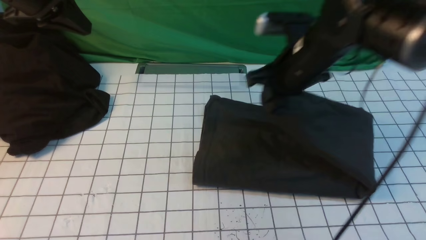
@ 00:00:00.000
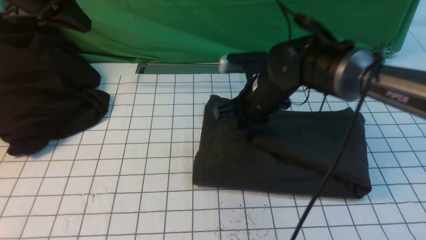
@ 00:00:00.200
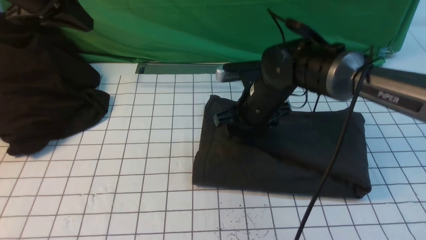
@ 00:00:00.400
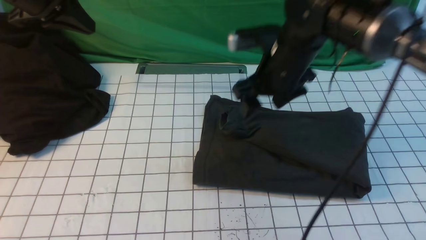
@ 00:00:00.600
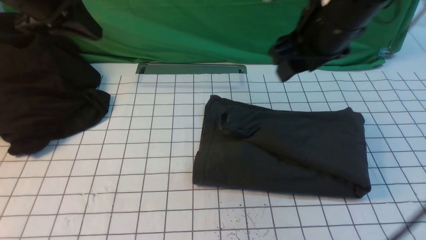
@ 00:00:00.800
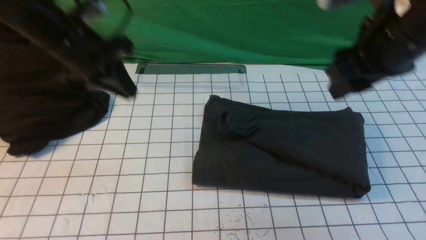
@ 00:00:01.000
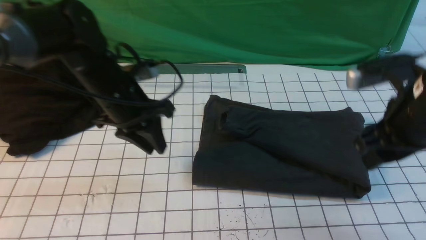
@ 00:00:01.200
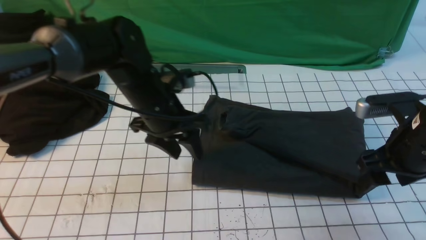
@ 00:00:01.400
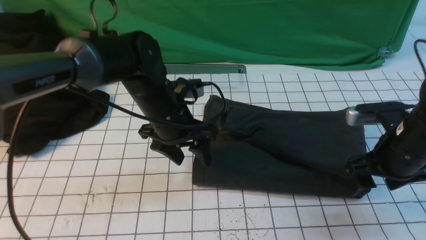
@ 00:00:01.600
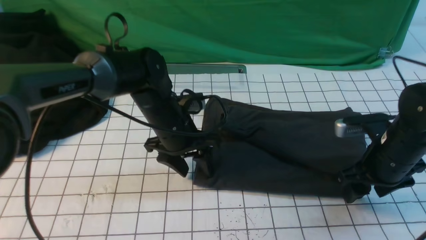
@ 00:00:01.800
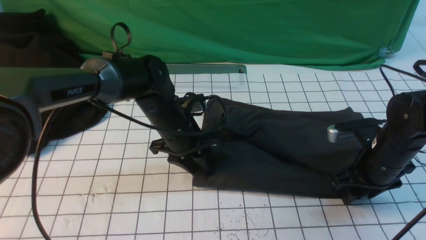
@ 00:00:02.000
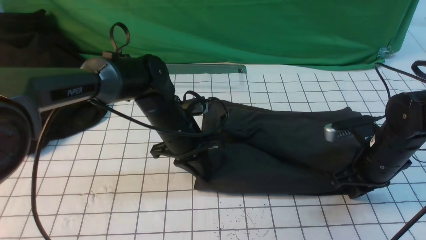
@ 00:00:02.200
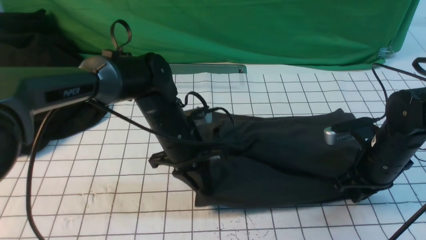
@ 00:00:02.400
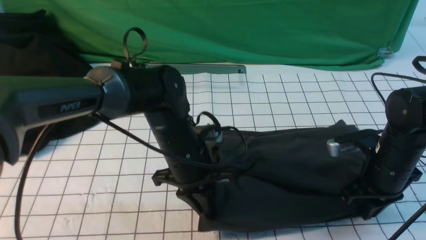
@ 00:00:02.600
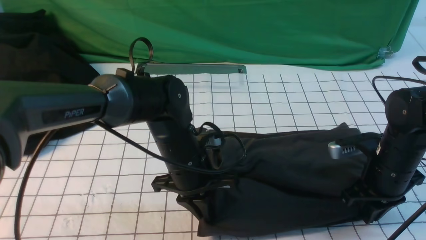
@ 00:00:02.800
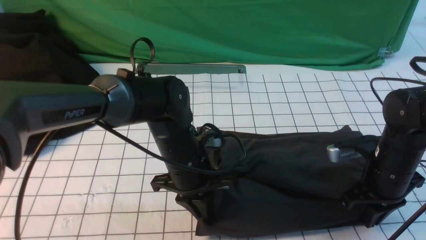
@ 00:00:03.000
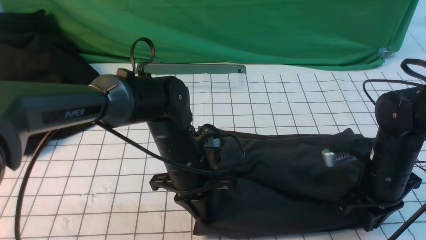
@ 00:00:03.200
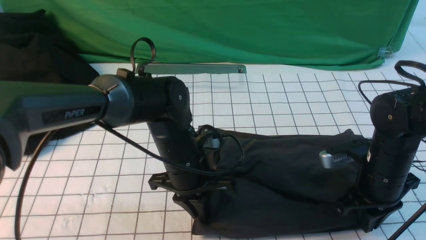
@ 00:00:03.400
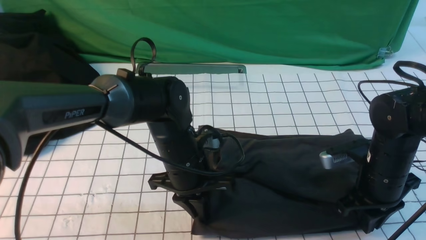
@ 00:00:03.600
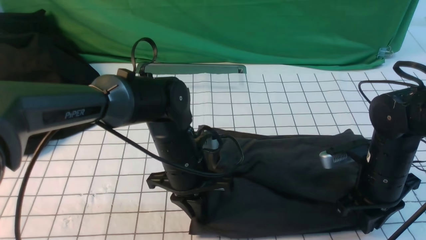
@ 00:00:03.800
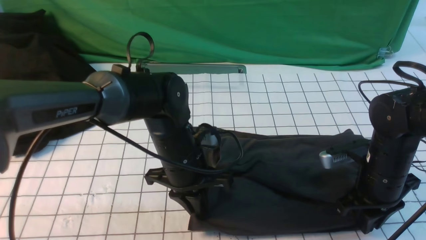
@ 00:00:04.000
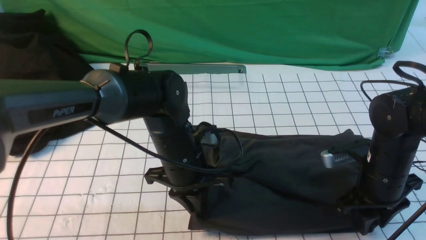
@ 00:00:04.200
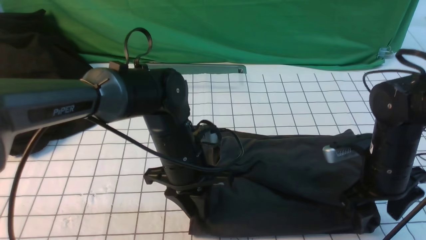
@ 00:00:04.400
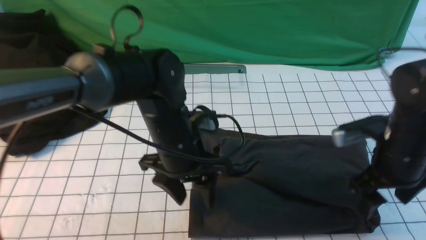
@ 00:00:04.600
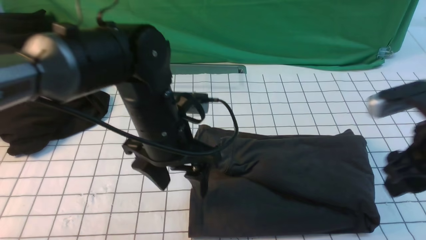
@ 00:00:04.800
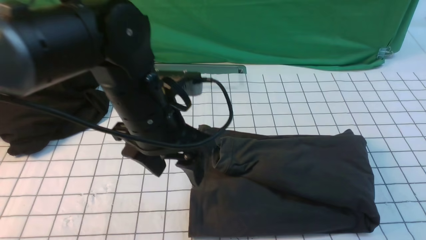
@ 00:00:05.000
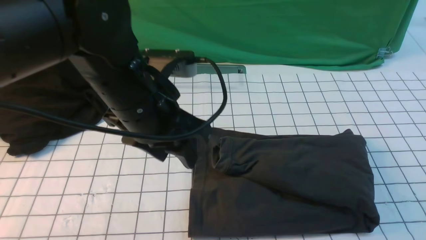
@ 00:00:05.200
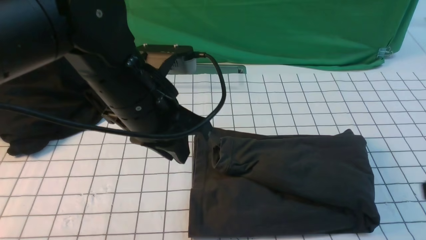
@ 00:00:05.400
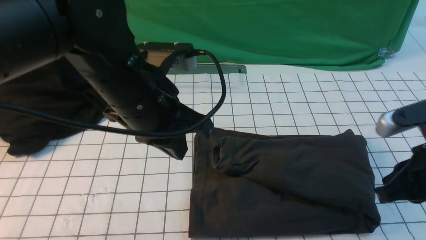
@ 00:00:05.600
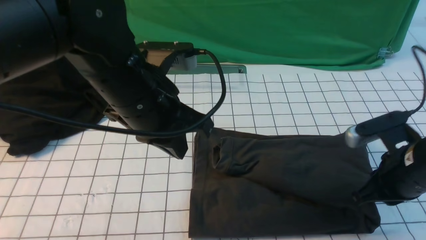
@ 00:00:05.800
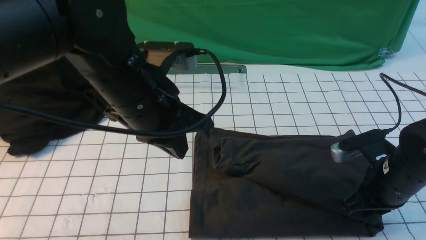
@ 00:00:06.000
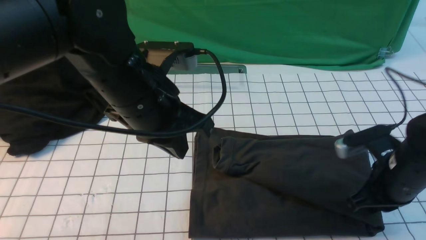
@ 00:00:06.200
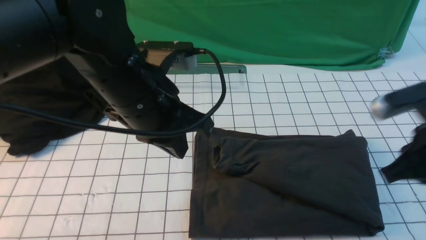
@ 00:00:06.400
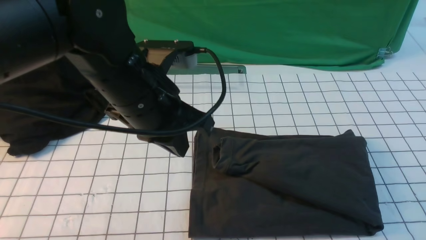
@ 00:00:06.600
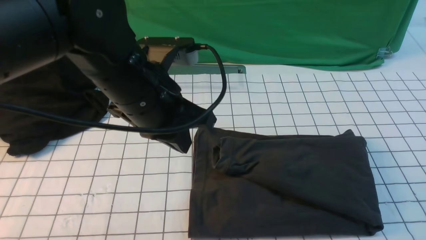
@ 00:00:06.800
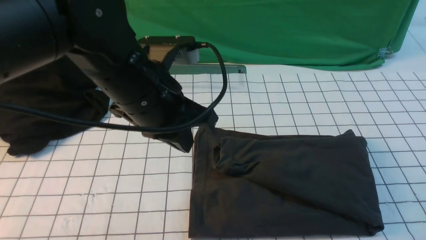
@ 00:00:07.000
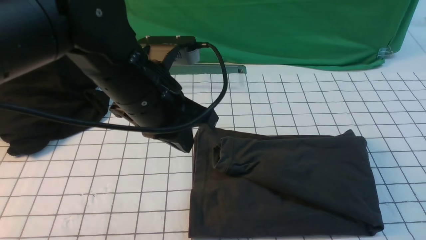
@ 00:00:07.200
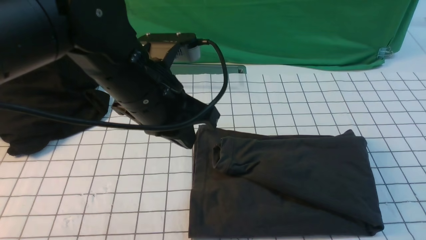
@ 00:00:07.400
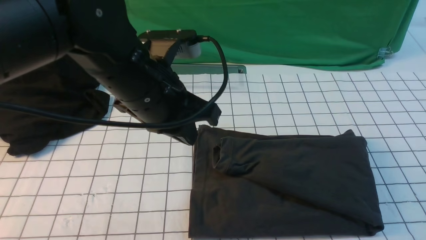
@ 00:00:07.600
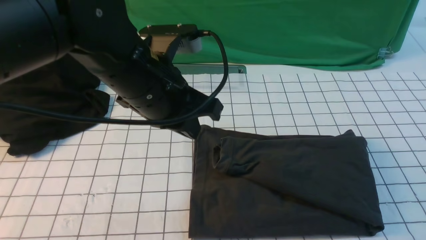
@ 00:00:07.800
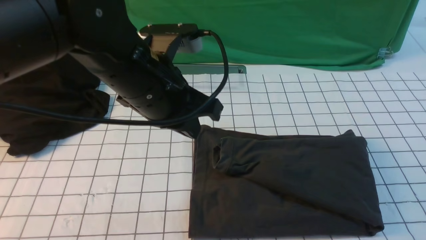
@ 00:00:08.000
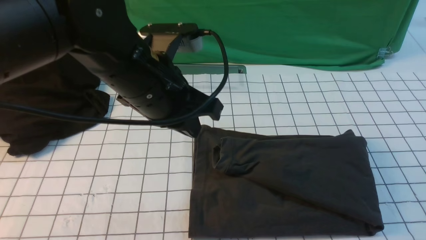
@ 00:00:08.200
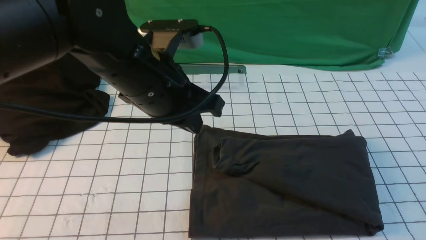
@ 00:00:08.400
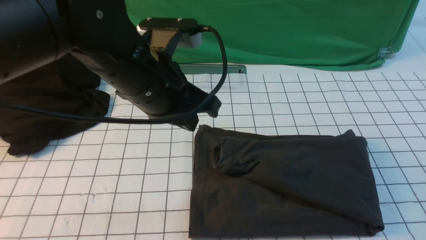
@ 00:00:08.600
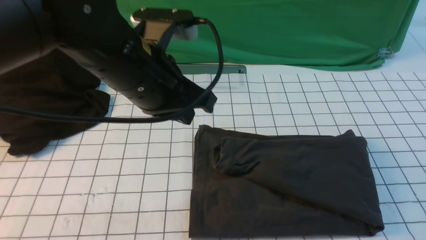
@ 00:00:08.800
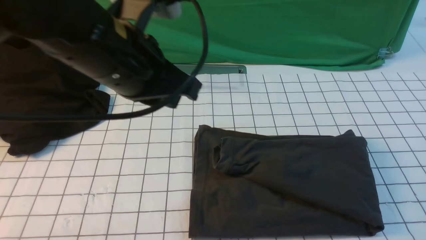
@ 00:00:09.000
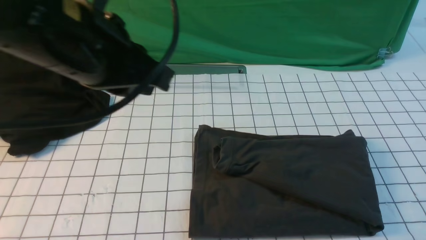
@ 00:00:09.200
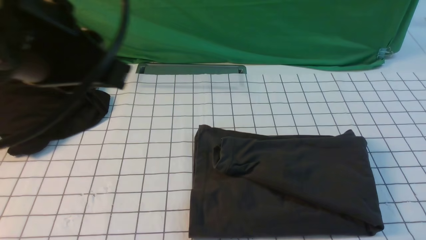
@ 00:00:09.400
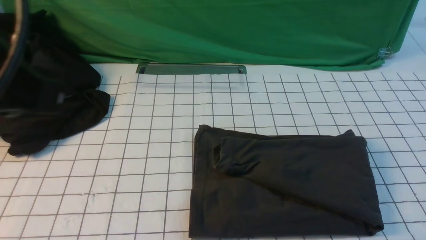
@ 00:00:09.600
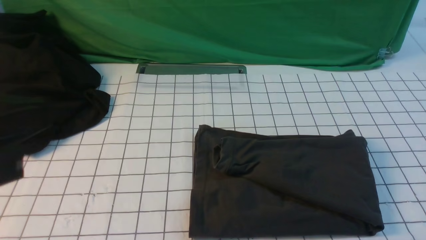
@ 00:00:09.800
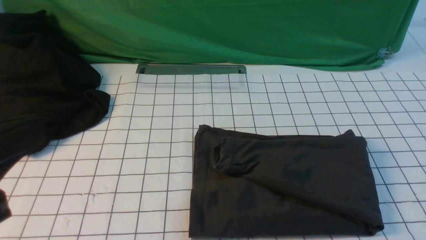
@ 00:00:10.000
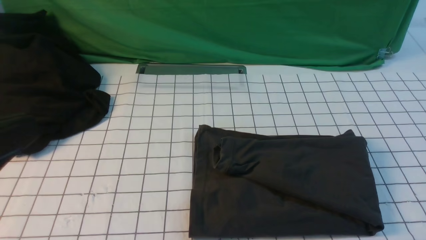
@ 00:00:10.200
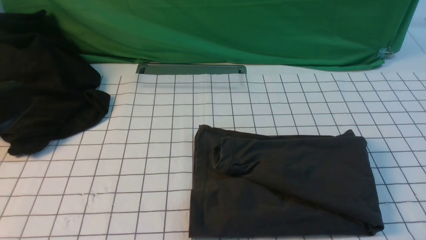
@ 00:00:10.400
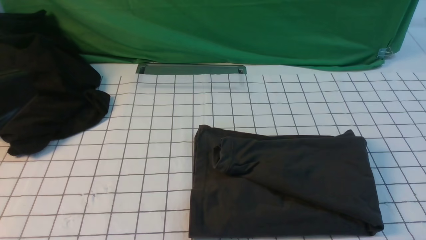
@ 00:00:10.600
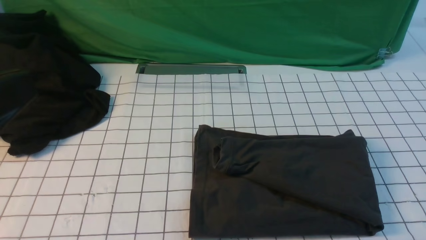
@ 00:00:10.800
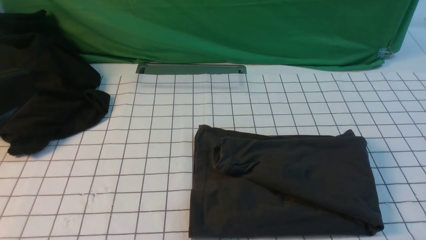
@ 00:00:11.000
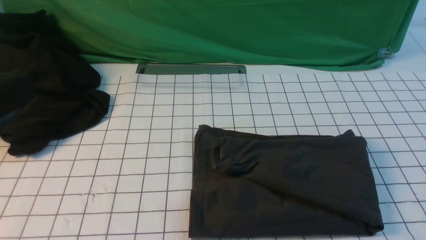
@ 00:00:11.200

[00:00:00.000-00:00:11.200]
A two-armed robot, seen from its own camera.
00:00:00.000 to 00:00:01.600: The left gripper heads to the right and downward, covering roughly 25 cm, and opens. The right gripper moves to the right, backward and downward, about 20 cm, and opens.
00:00:01.600 to 00:00:03.200: The left gripper is displaced backward by about 5 cm, and closes up; the right gripper closes its fingers.
00:00:03.200 to 00:00:04.800: The left gripper goes some 10 cm upward, and opens, while the right gripper shifts some 15 cm upward and backward, and opens up.
00:00:04.800 to 00:00:06.400: The left gripper shifts some 5 cm upward, and closes up. Meanwhile the right gripper goes up and down, about 15 cm each way, reversing 2 times, and closes its fingers.
00:00:06.400 to 00:00:08.000: The right gripper travels backward by approximately 15 cm.
00:00:08.000 to 00:00:09.600: The left gripper heads backward, to the left and upward, covering about 20 cm. Meanwhile the right gripper moves downward, roughly 10 cm.

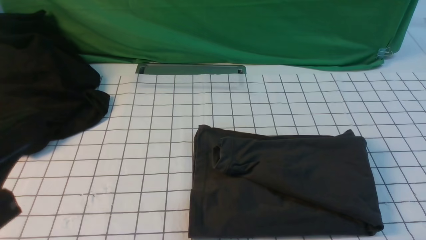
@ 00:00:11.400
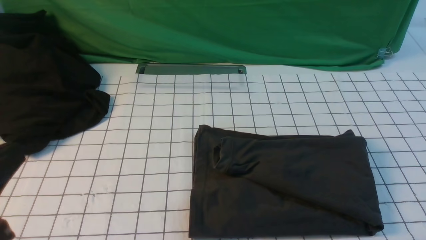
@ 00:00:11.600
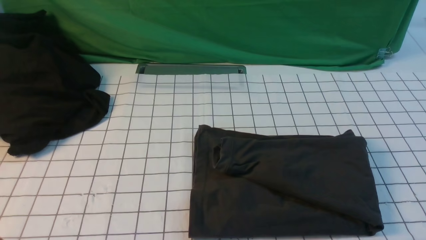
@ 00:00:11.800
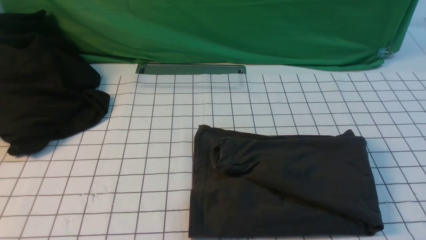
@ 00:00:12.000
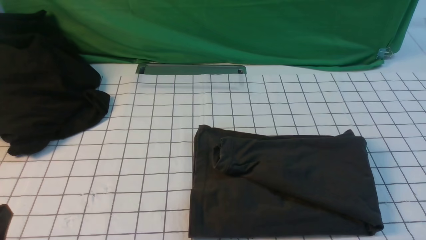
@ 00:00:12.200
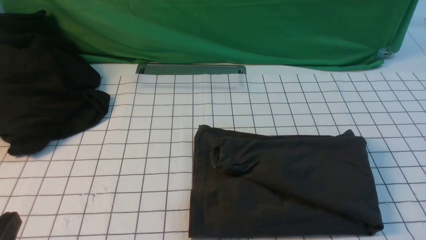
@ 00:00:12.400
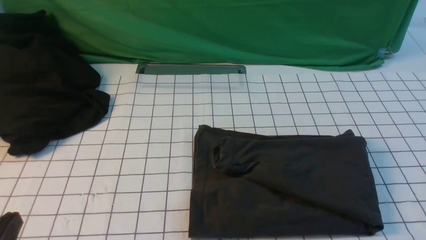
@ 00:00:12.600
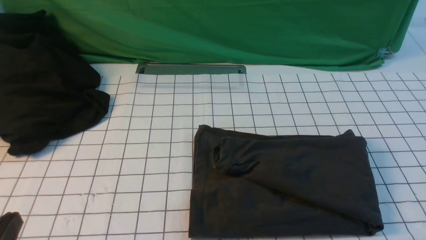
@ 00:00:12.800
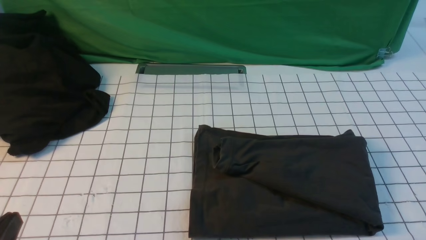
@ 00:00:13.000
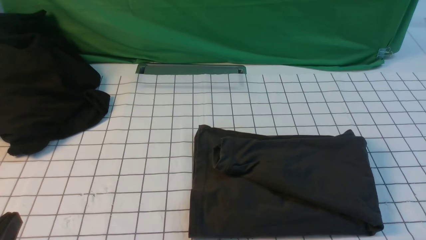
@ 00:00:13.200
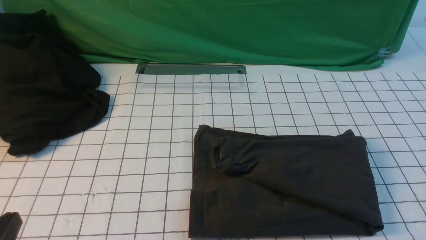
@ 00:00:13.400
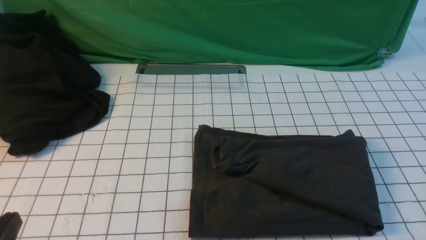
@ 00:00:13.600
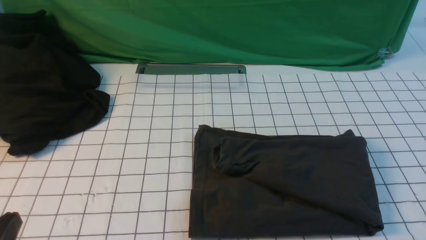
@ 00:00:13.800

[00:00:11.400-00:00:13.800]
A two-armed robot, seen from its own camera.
00:00:11.400 to 00:00:12.600: The left gripper heads downward, covering roughly 15 cm.
00:00:12.600 to 00:00:13.800: Both grippers stay about where they are.
